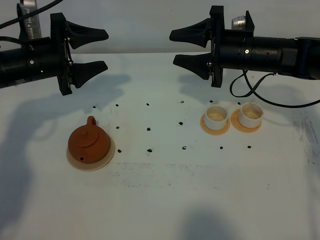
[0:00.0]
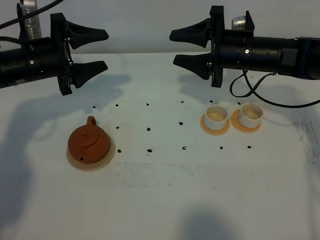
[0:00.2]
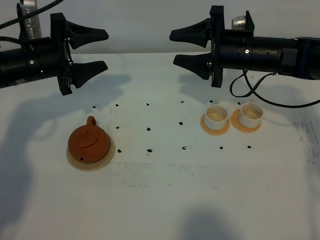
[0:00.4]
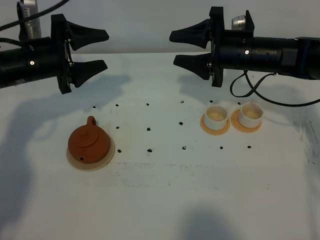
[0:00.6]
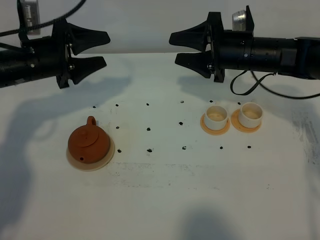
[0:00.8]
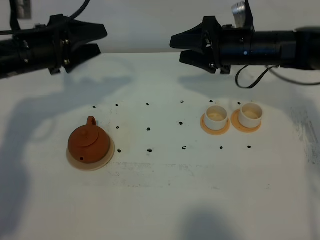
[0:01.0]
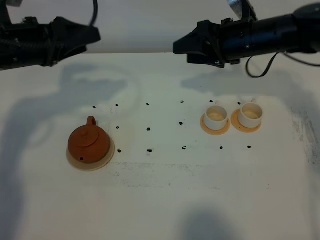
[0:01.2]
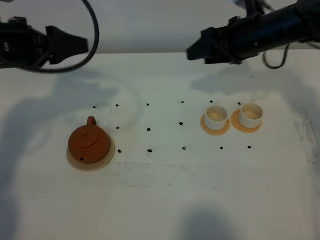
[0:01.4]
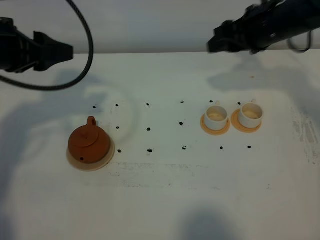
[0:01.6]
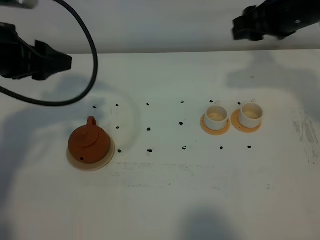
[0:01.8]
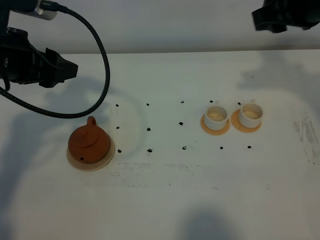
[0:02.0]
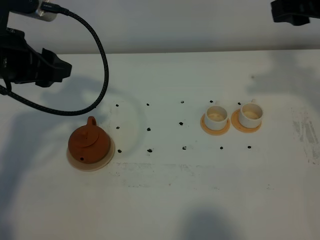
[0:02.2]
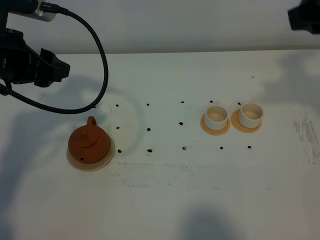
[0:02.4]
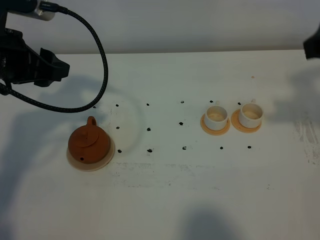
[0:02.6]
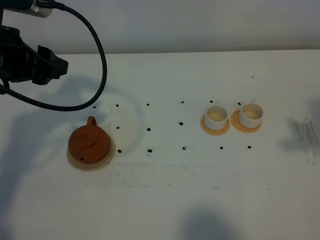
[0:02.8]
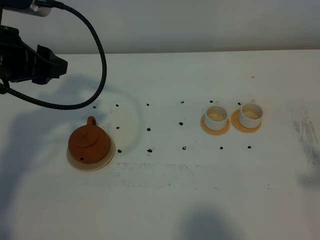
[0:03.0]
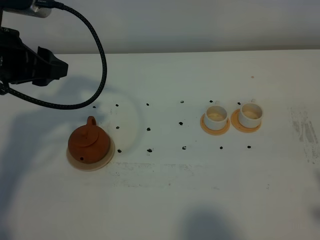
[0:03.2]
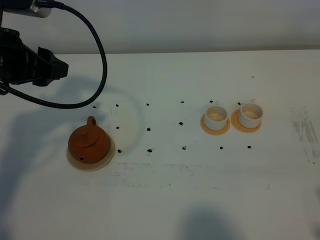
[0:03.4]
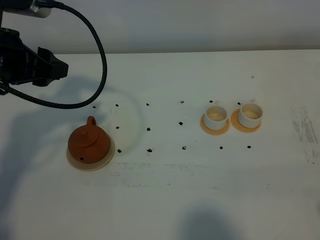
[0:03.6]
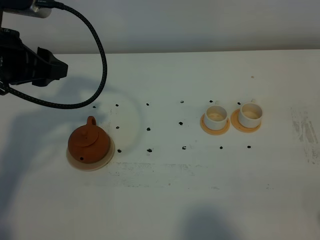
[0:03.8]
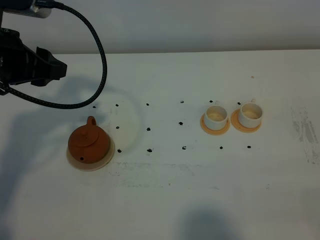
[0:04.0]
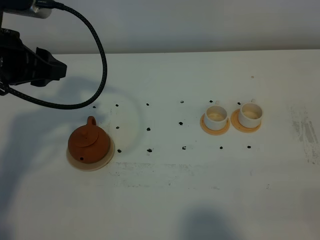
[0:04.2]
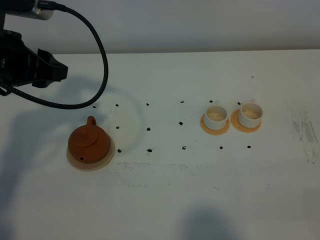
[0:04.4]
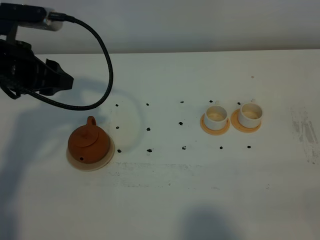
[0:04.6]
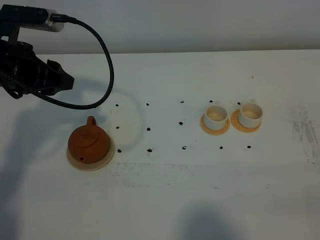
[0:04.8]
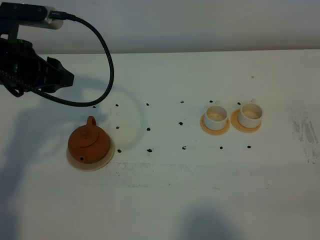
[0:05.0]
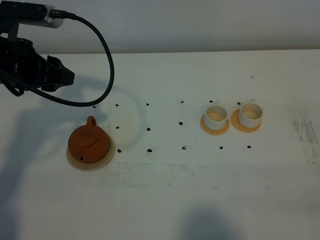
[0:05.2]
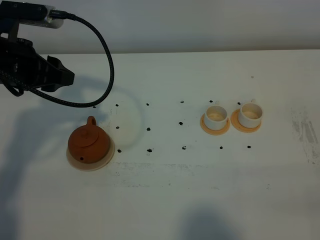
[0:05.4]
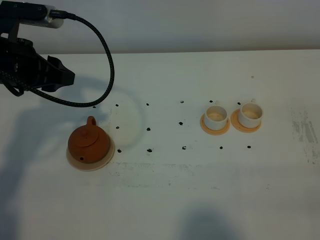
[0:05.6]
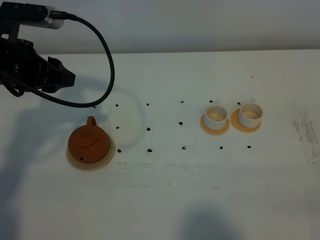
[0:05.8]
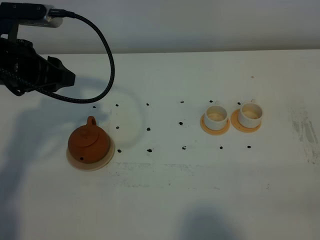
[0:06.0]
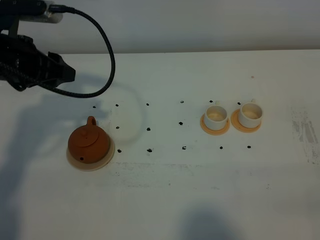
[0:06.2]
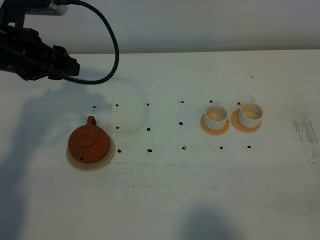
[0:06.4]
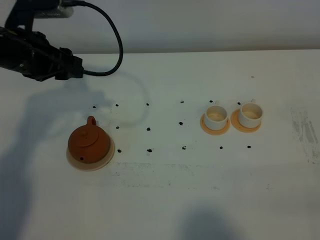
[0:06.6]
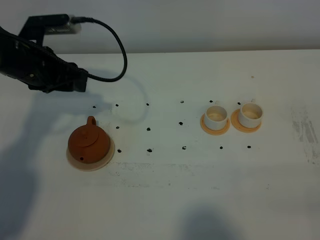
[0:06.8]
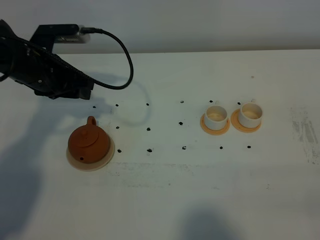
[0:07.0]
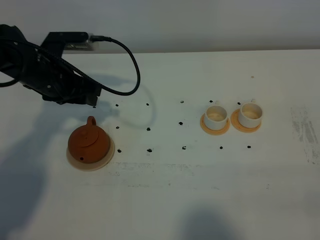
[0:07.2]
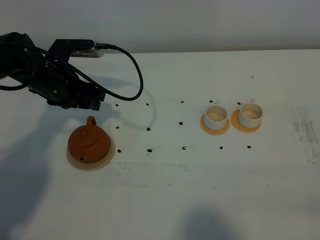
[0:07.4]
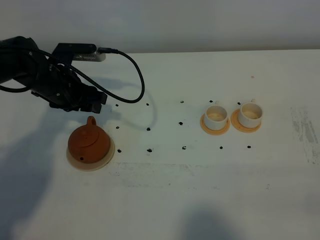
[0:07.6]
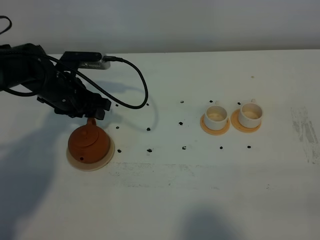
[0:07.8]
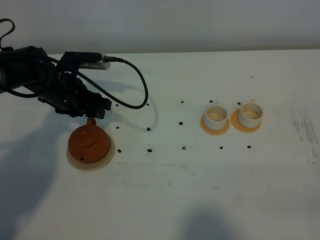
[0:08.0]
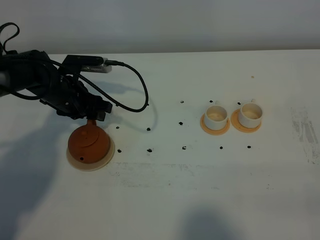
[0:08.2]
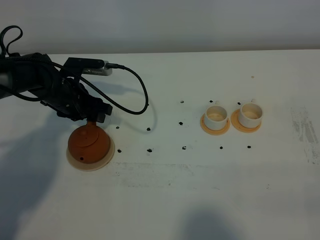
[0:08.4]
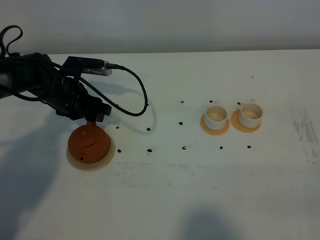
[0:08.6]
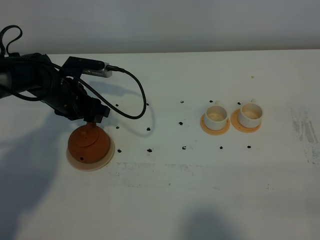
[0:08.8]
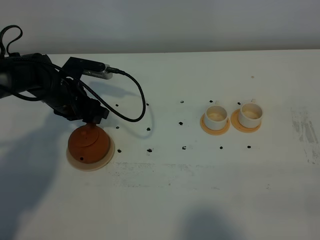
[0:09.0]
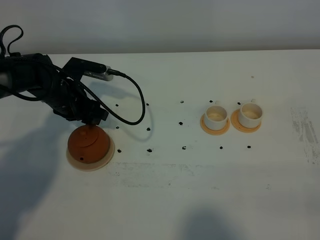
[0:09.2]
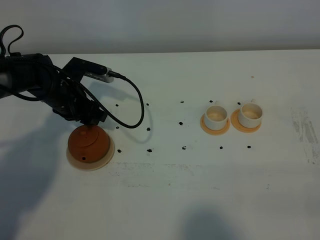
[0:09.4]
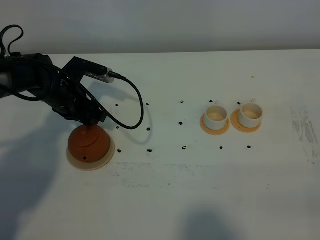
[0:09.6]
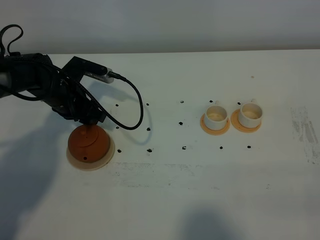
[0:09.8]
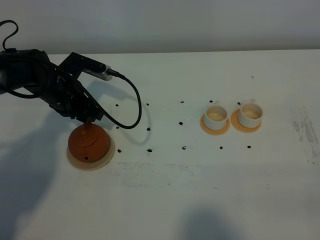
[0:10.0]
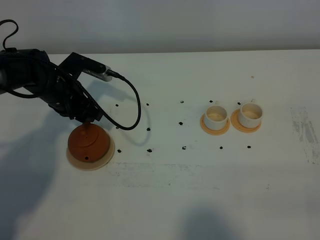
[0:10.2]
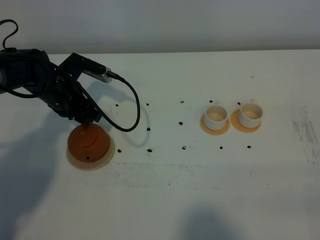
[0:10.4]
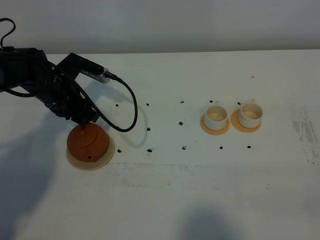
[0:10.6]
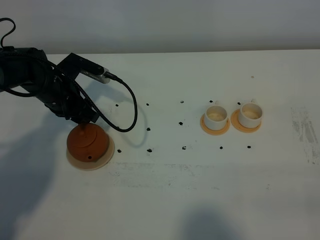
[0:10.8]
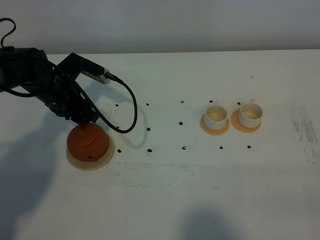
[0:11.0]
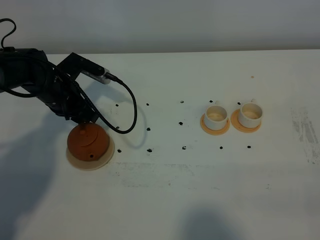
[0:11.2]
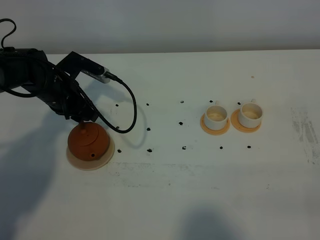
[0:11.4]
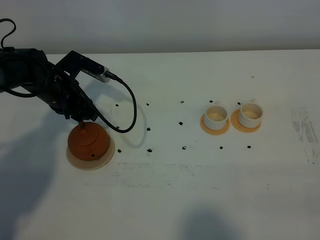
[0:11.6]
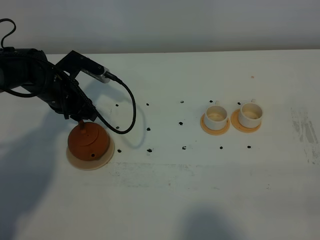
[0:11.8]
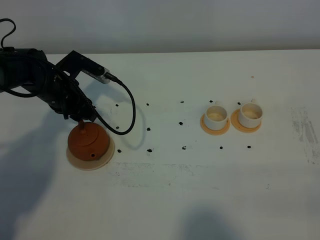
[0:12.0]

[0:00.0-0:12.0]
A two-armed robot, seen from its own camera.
Task of the whole recording: grasp the brown teapot and pour the tea into the two white teacups one by one, put the brown teapot back in its original place.
0:00.0 to 0:01.6: The left gripper goes some 10 cm upward and backward; the right gripper travels upward by approximately 5 cm.
0:01.6 to 0:03.0: The right gripper is displaced backward and to the right by about 35 cm.
0:04.4 to 0:06.0: The grippers make only small movements.
0:06.0 to 0:07.6: The left gripper heads downward and forward, covering about 15 cm.
0:07.6 to 0:10.4: The grippers stay close to where they were, moving slightly.
0:10.4 to 0:12.0: The grippers stay close to where they were, moving slightly.

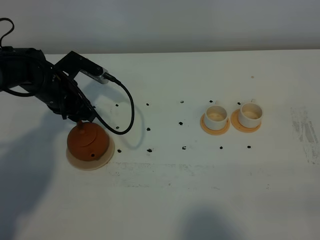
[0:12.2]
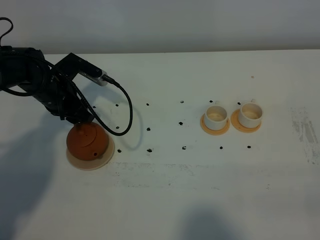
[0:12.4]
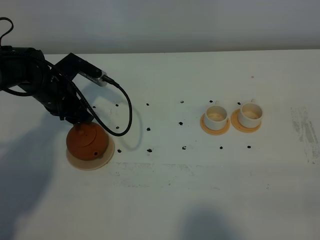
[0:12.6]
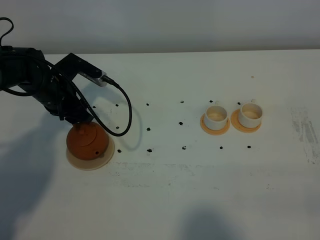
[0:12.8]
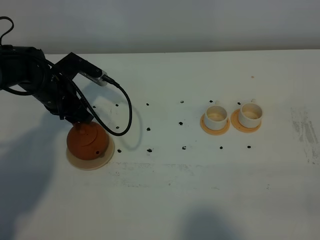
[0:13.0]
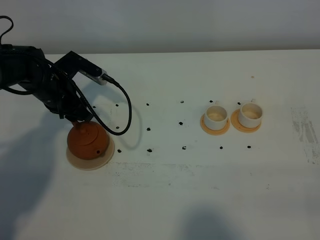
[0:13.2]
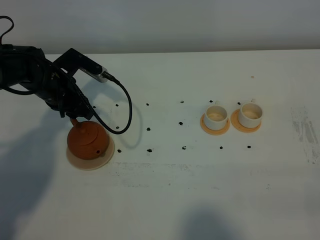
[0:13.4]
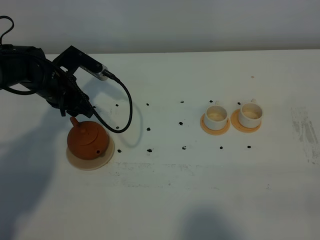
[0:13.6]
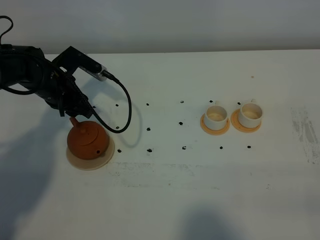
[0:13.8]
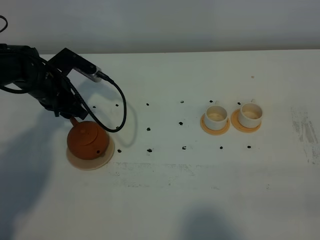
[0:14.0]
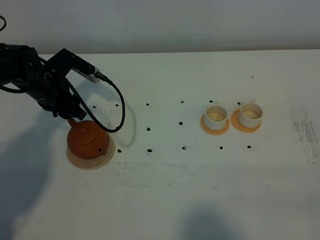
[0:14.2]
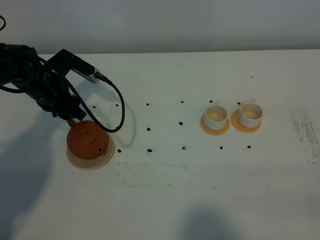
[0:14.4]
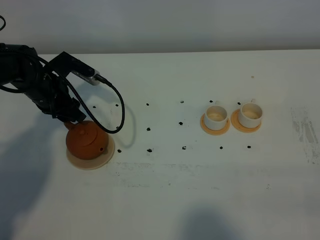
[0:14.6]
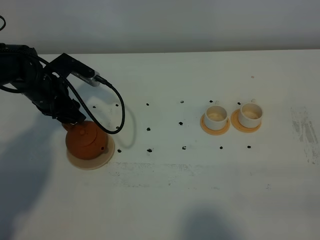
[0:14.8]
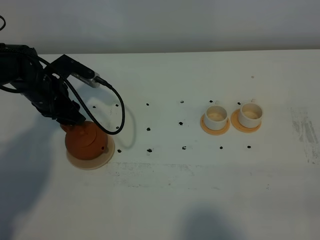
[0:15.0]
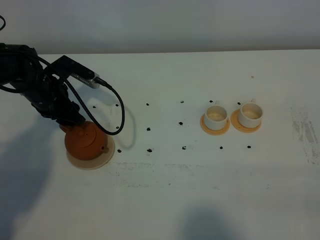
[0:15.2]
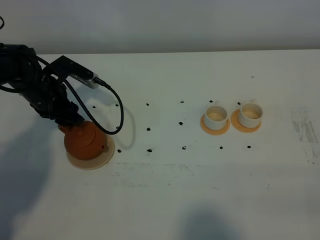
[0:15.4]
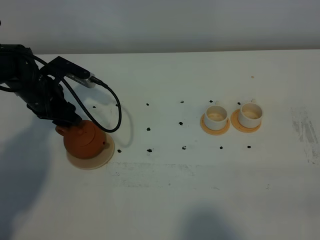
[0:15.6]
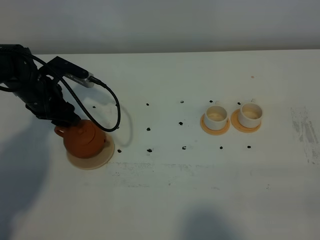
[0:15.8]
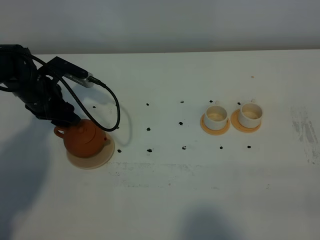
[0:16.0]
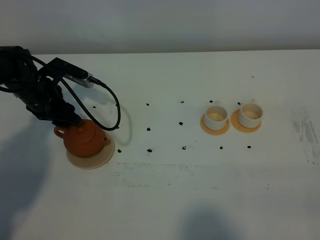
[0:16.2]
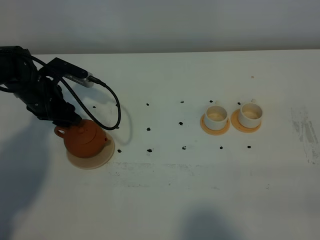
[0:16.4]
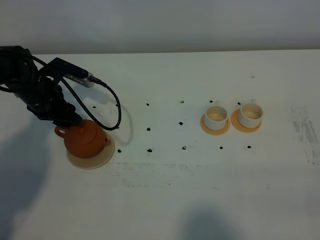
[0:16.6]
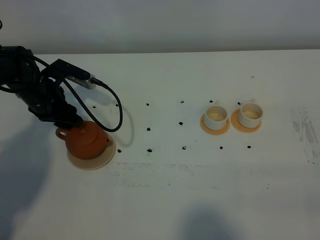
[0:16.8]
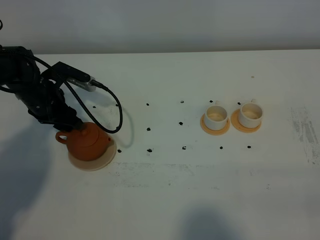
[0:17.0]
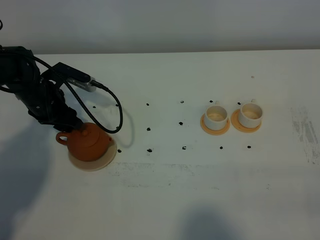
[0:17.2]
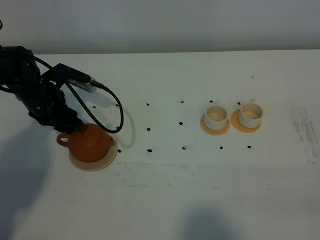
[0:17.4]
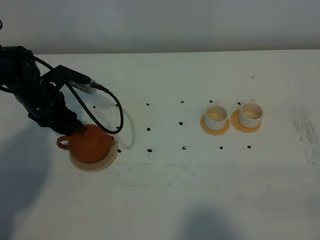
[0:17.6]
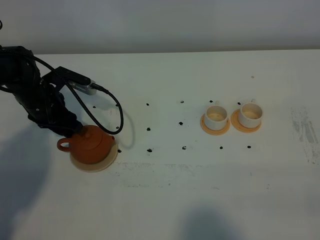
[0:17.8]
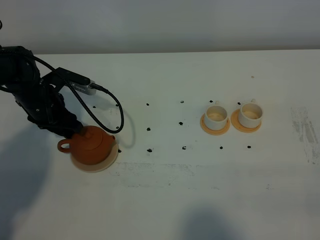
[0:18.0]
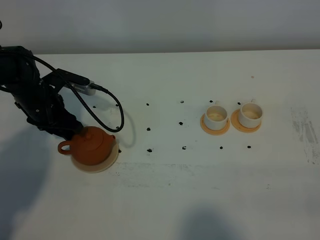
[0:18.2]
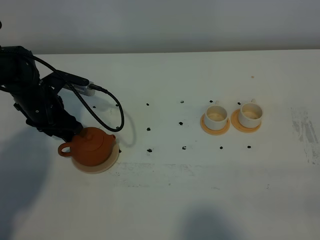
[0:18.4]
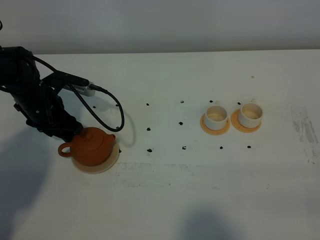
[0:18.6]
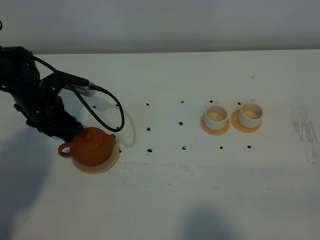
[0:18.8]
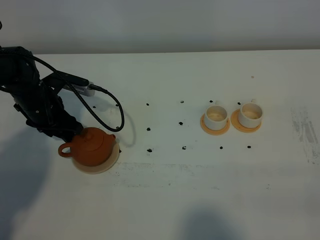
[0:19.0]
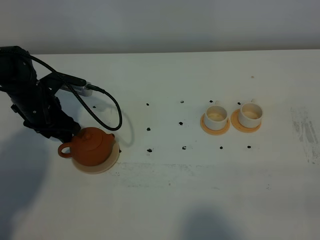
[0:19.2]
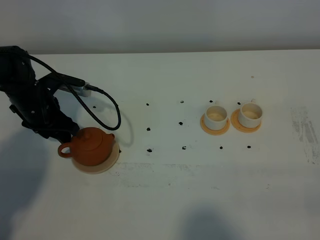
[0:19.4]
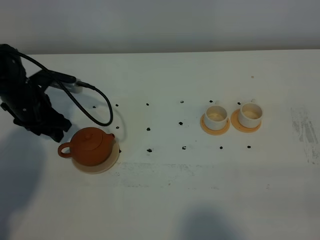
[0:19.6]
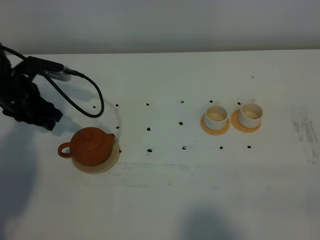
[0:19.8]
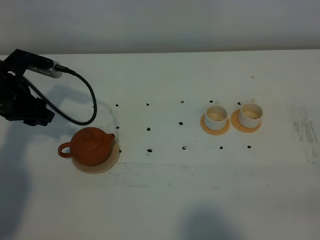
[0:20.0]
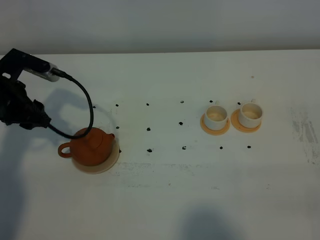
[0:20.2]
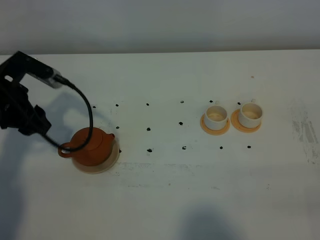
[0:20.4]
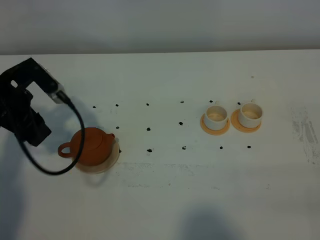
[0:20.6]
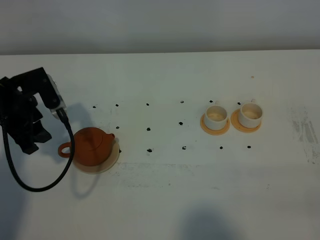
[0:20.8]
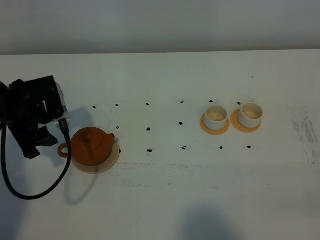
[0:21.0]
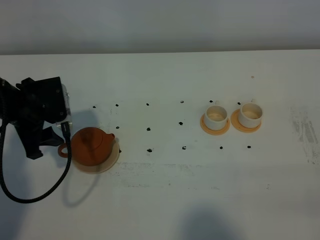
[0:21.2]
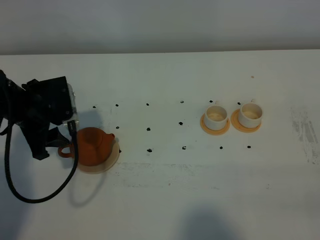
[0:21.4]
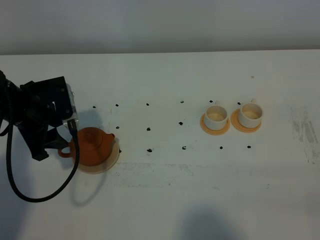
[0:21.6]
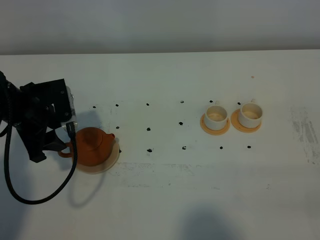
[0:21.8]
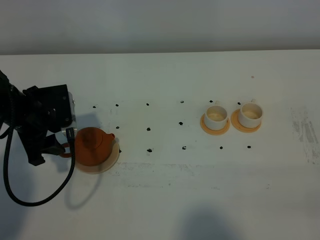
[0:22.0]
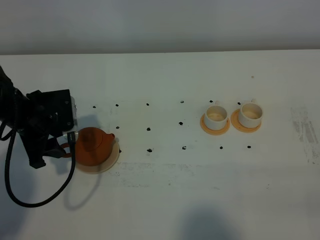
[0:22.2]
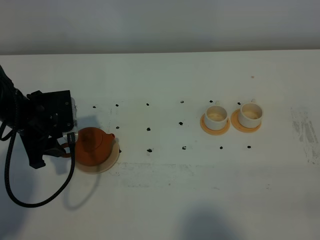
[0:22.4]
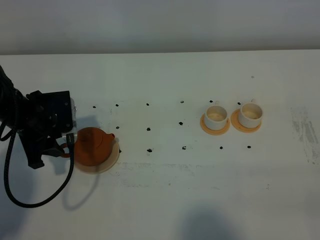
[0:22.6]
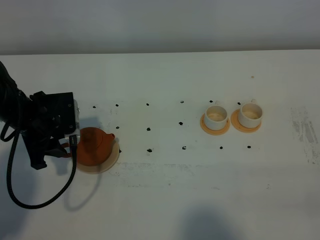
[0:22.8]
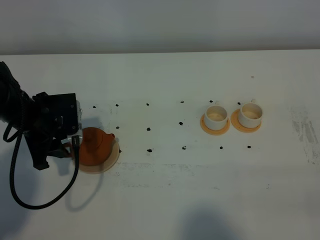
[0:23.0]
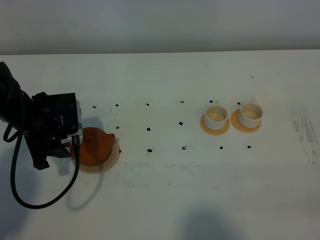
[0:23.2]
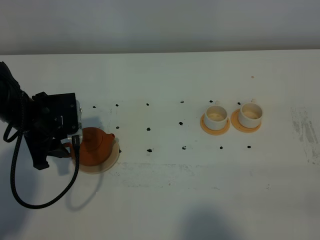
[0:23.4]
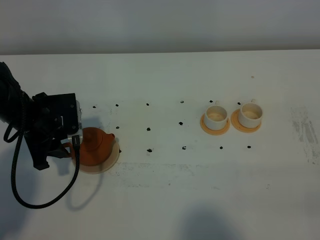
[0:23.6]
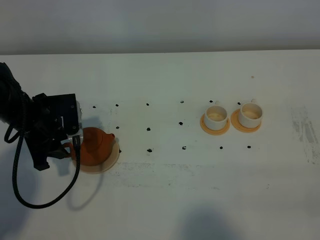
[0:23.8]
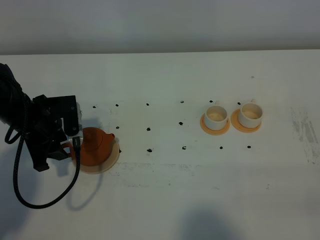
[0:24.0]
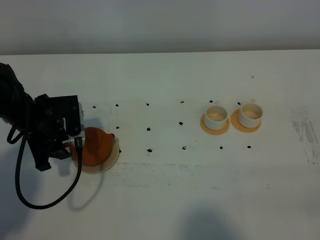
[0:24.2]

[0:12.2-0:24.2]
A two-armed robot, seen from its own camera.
Task of the whole recording: grasp the brown teapot and pour the tea into the two white teacups one by one, put the brown teapot back in its original place.
0:12.2 to 0:13.8: Both grippers stay about where they are.
0:13.8 to 0:16.6: The grippers move only a little.
0:16.6 to 0:18.2: The grippers move only a little.
0:18.2 to 0:19.8: The left gripper ends up about 5 cm from where it was.
0:19.8 to 0:21.2: The left gripper is displaced backward by roughly 5 cm.
0:21.2 to 0:22.6: There are only small adjustments of the grippers.
0:22.6 to 0:24.2: The two grippers keep their place.
